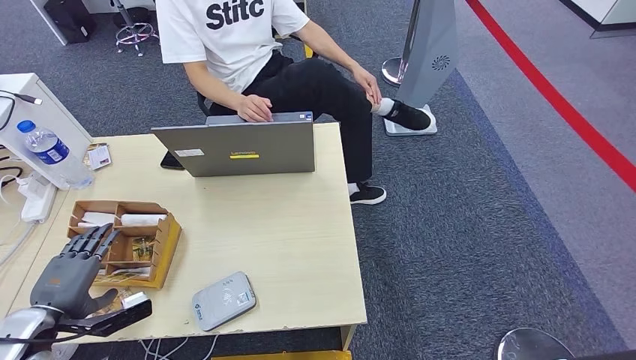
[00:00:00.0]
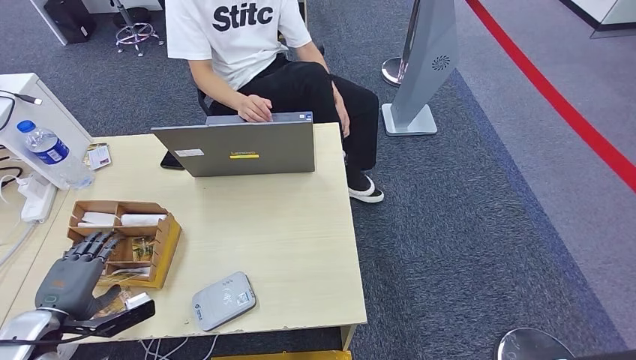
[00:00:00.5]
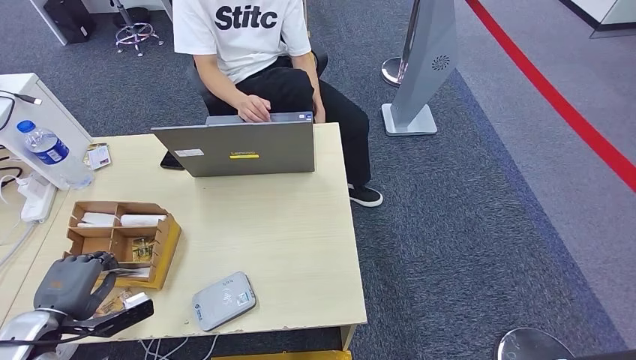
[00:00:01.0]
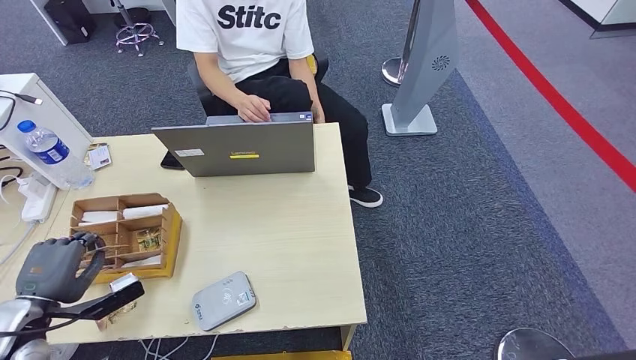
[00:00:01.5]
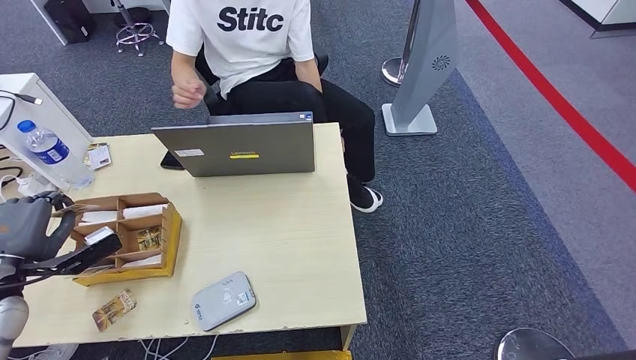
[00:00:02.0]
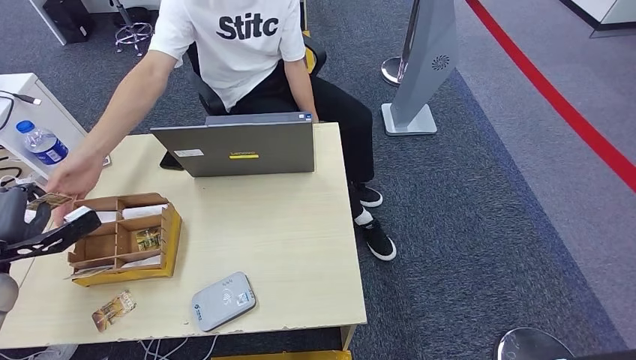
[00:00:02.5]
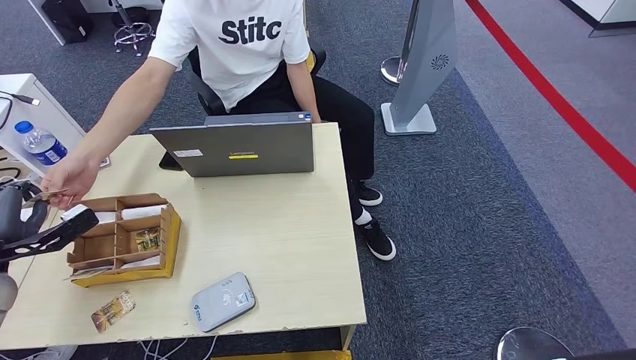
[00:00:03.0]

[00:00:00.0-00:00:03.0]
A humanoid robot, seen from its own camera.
Step, 00:00:00.0 to 00:00:02.0: Pick up the room key from the key card box.
Step, 00:00:02.5 to 00:00:03.0: Hand the room key to the person.
00:00:00.0 to 00:00:01.5: The hands make only small movements.
00:00:01.5 to 00:00:03.0: The left hand is displaced forward and to the left by some 10 cm.
